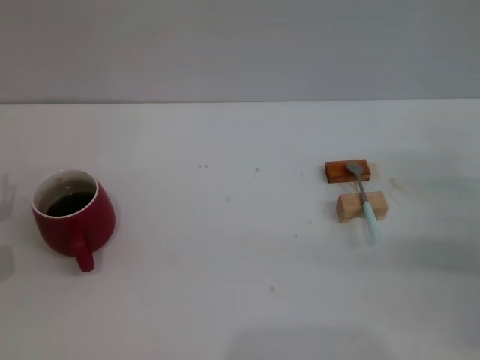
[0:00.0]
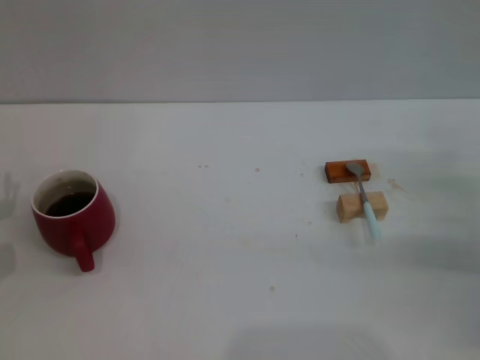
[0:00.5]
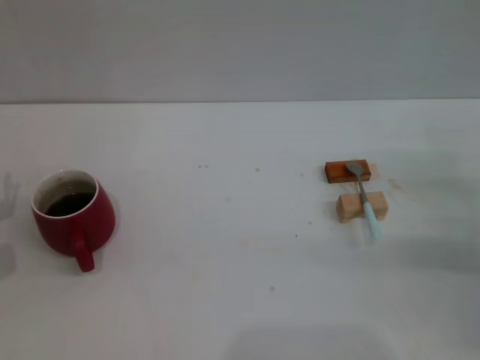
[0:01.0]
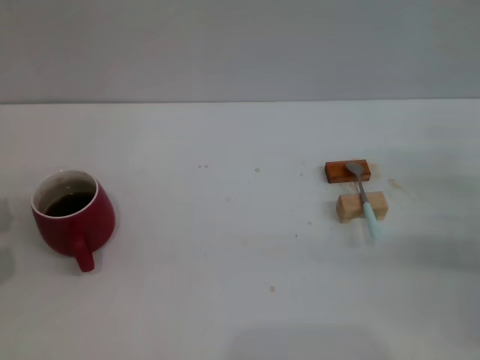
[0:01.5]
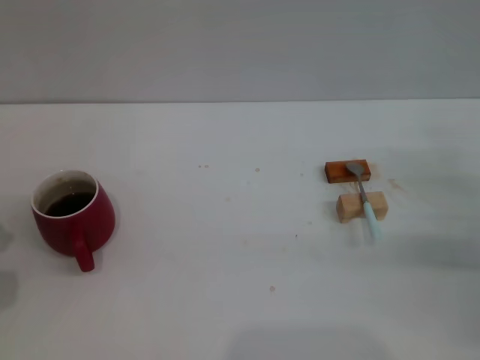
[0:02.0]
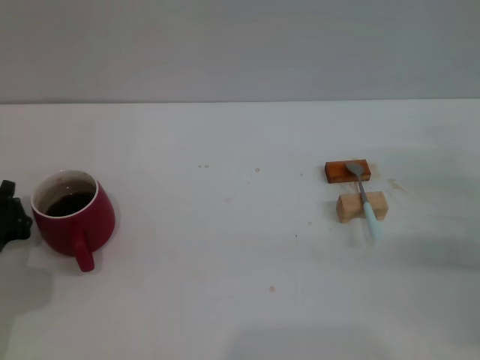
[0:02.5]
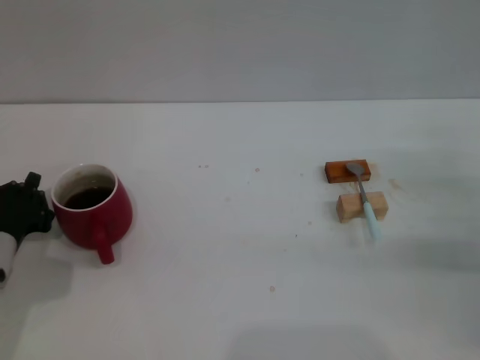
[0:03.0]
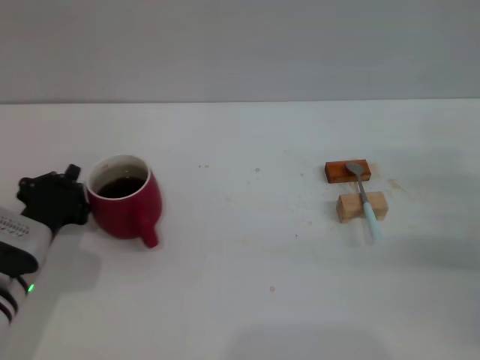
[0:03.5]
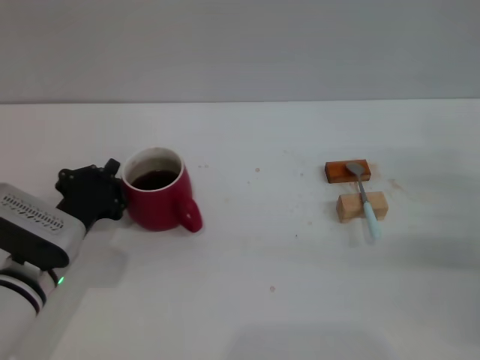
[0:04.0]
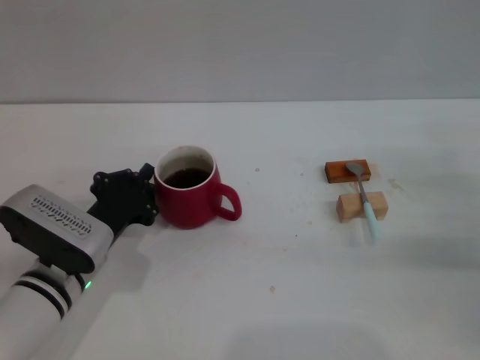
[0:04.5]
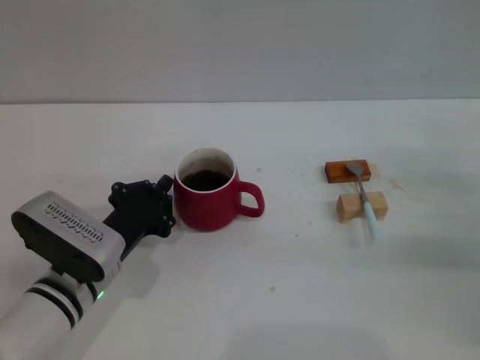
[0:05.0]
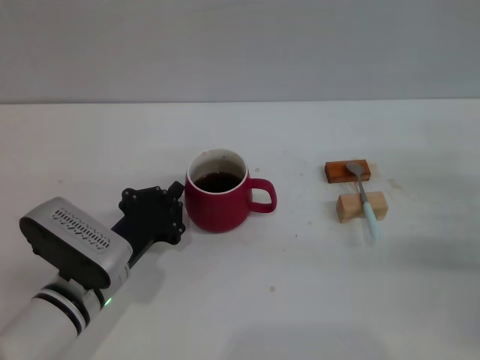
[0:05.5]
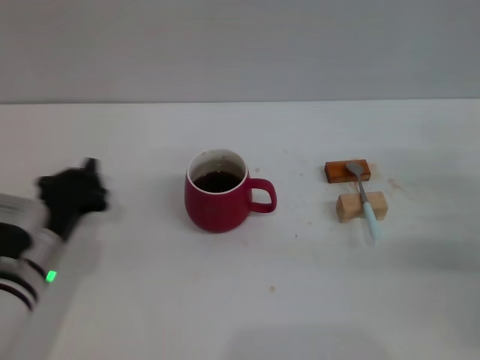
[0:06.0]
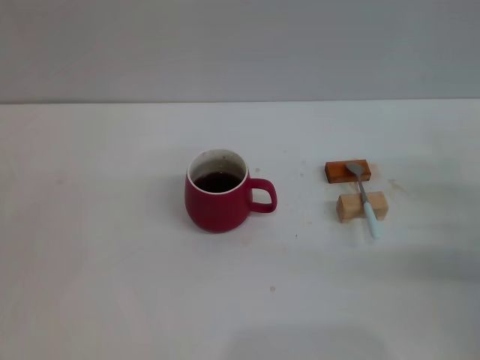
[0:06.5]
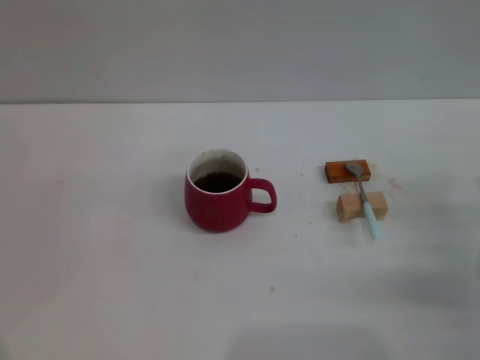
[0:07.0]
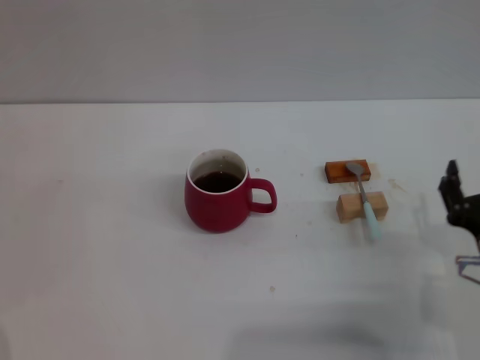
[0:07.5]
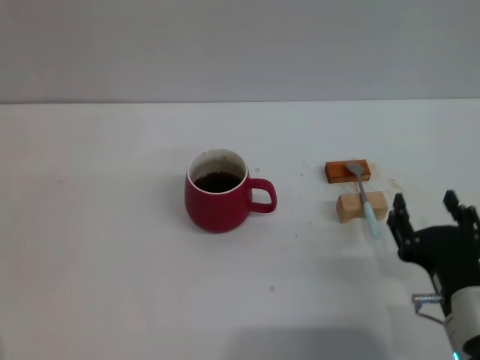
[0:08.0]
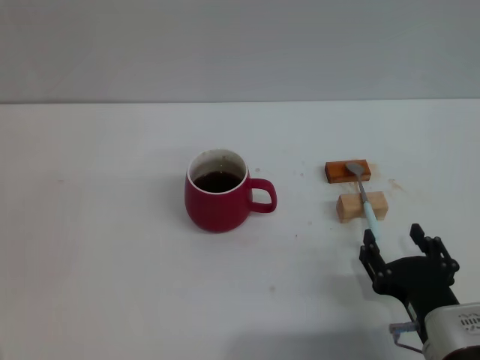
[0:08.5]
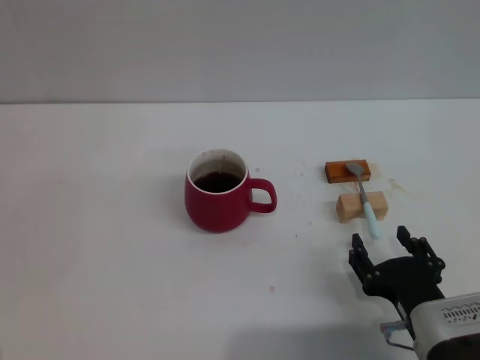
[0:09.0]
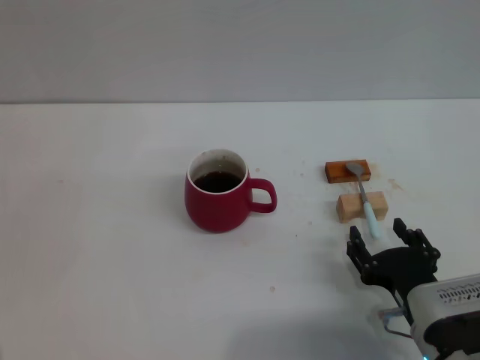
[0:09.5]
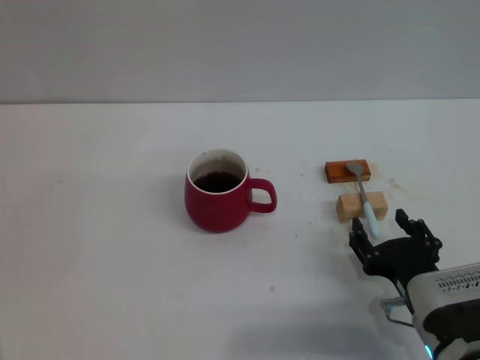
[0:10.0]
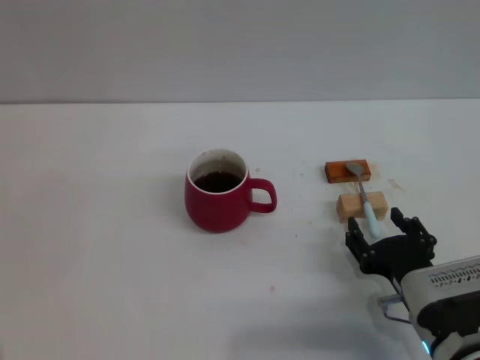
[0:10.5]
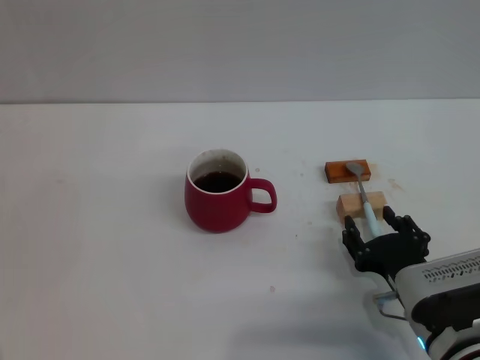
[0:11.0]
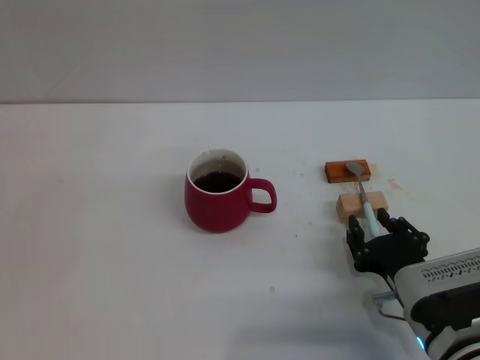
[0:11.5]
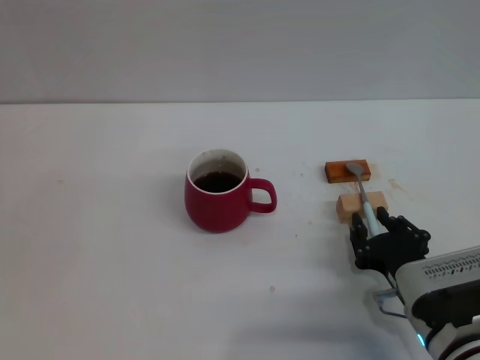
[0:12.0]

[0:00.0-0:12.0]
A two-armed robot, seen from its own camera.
Task of the whole recording: Move the red cup to the center, lift the blue spoon, stir it three times in the cup, and put the spoon into the cup.
Step, 0.0 to 5.5 s: Move the cup in the center of the table with left gripper.
2.0 to 4.0 s: The left gripper goes about 10 cm to the right.
4.0 to 6.0 s: The grippers stay close to where they were, moving slightly.
6.0 to 8.0 s: The right gripper shifts roughly 20 cm to the left and backward. The left gripper travels to the left by some 10 cm, and opens.
8.0 to 10.0 s: The grippers move only a little.
10.0 to 12.0 s: The right gripper closes its fingers.

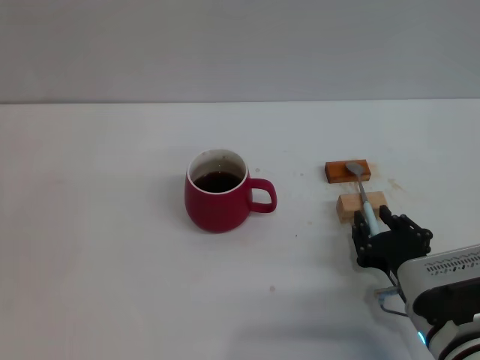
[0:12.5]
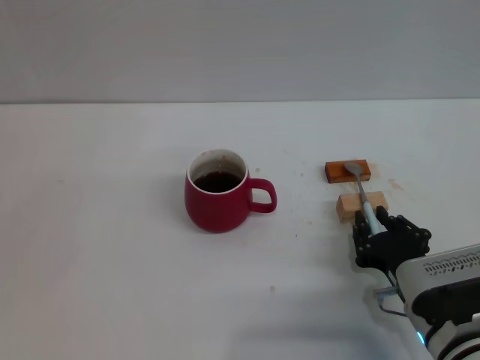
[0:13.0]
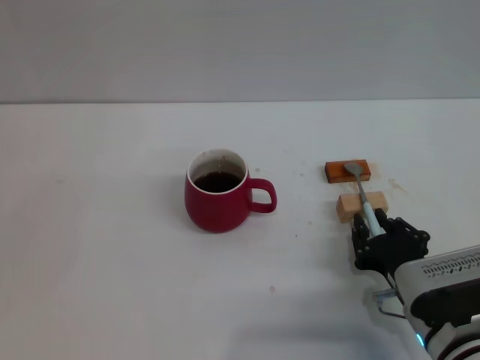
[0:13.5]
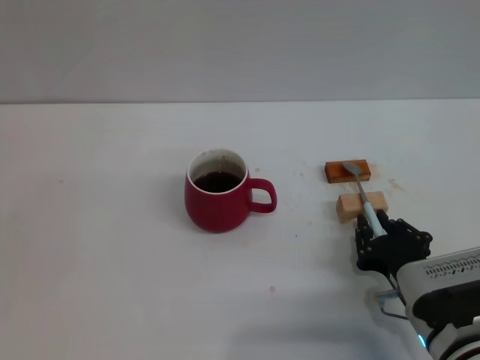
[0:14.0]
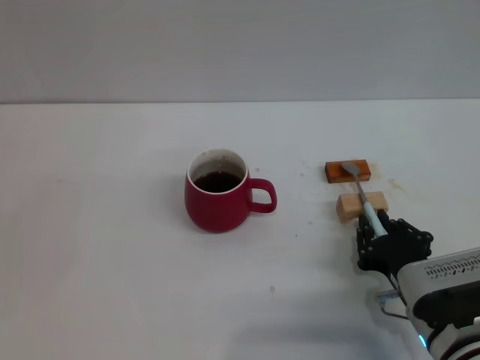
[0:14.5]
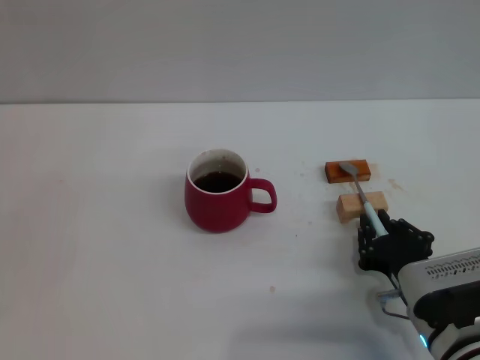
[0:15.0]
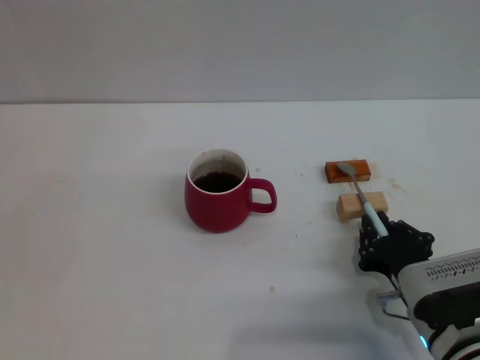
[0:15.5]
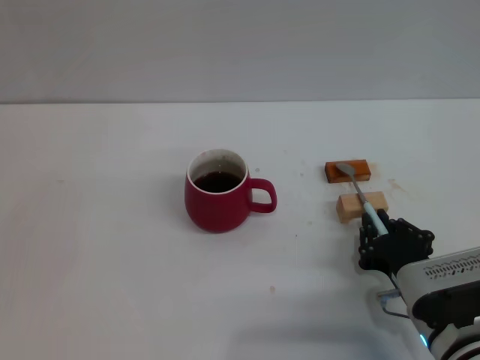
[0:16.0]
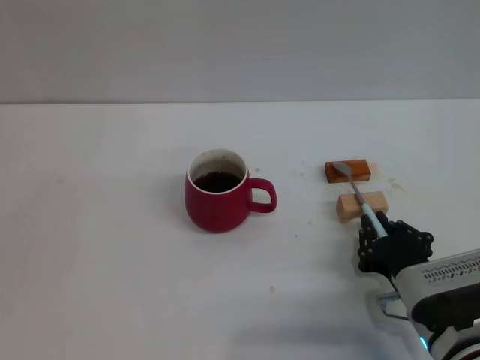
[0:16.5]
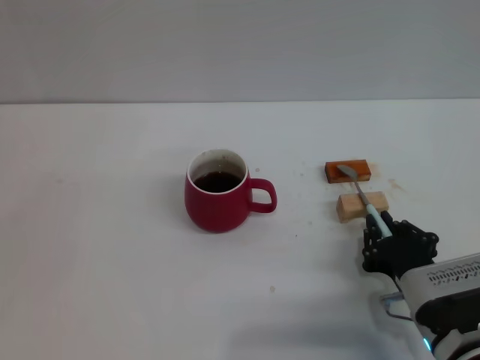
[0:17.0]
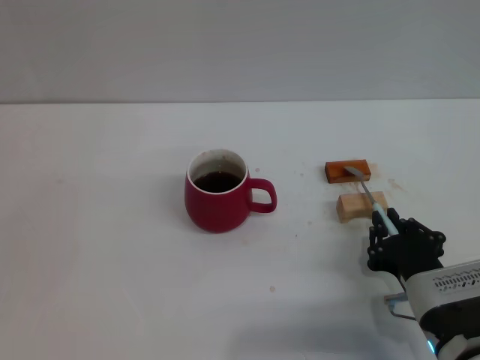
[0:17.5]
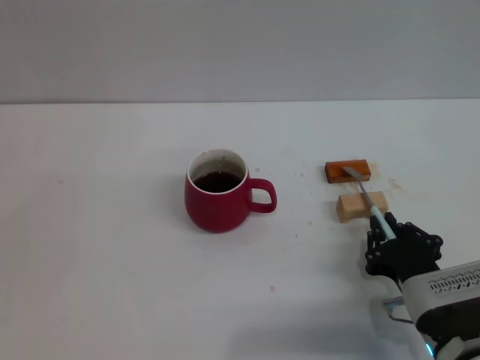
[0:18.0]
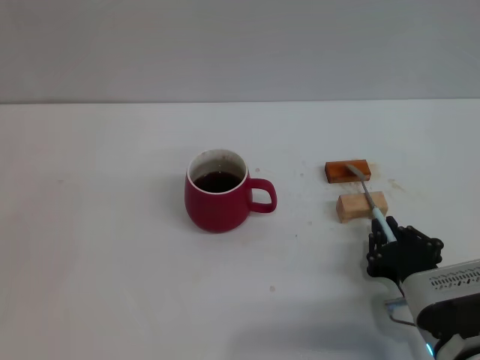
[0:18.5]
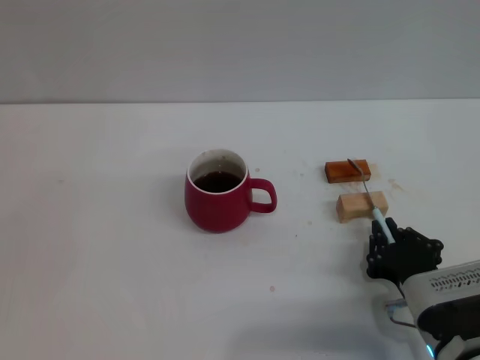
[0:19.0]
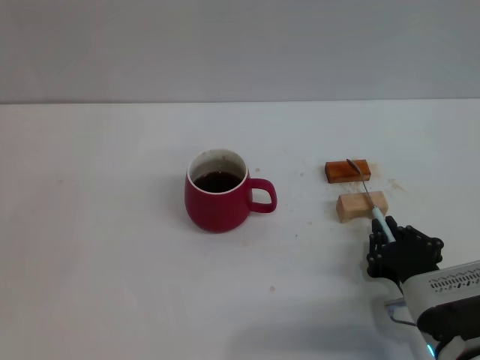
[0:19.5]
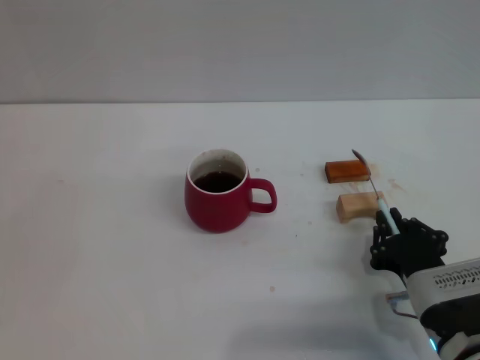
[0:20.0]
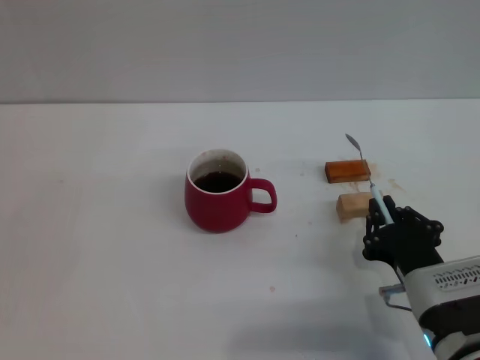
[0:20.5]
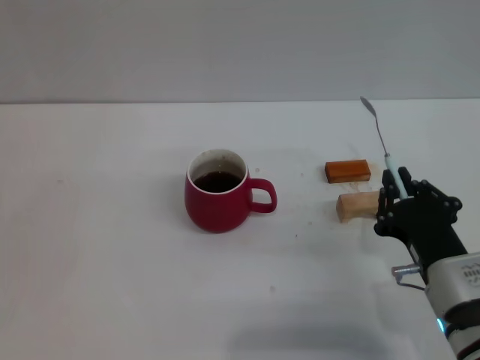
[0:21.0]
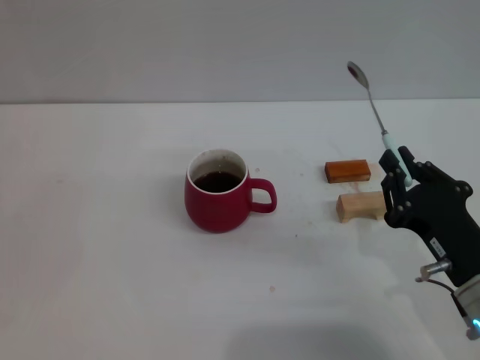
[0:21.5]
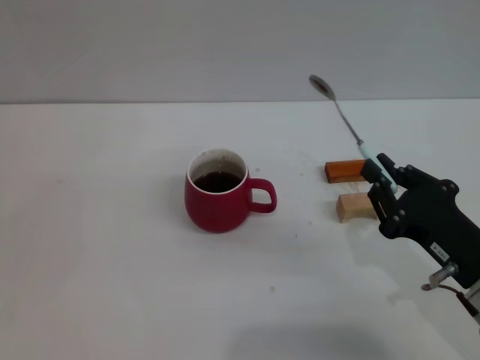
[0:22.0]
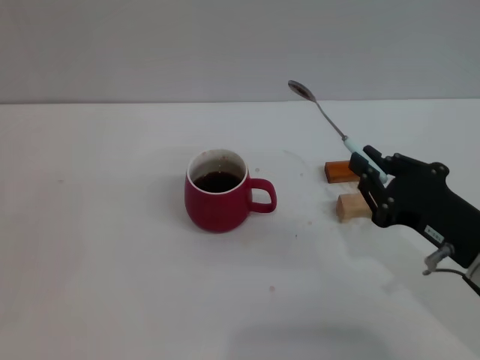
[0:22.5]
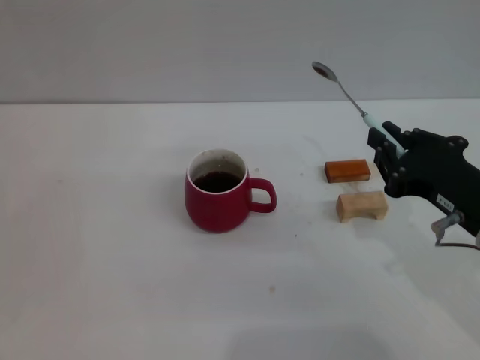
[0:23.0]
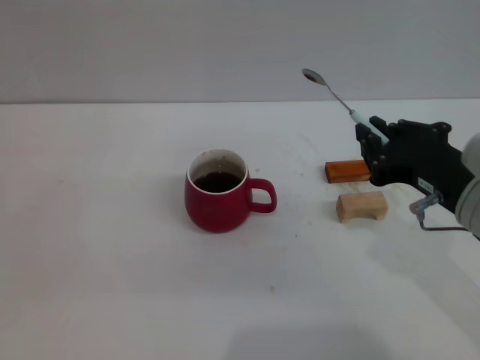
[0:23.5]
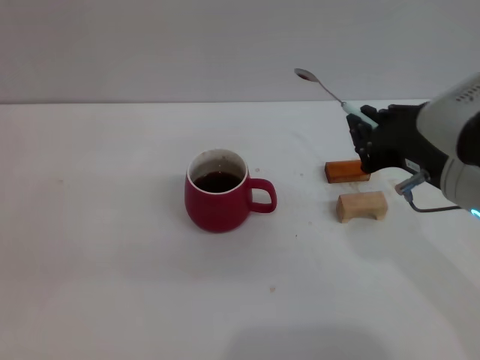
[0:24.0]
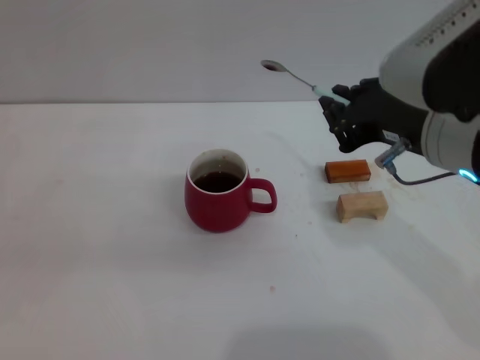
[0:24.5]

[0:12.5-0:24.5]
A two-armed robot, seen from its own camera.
Task of the whole recording: Move the red cup to the center, lift the blue spoon, stir it three times in the cup, and put the spoon into the cup.
Step, 12.5 to 18.5 s: Grasp the spoon with right gripper.
12.5 to 18.5 s: Both grippers stay put.
18.5 to 20.5 s: The grippers move only a little.
20.5 to 22.5 s: The right gripper shifts approximately 10 cm upward.
22.5 to 24.5 s: The right gripper moves upward and to the left, about 15 cm.

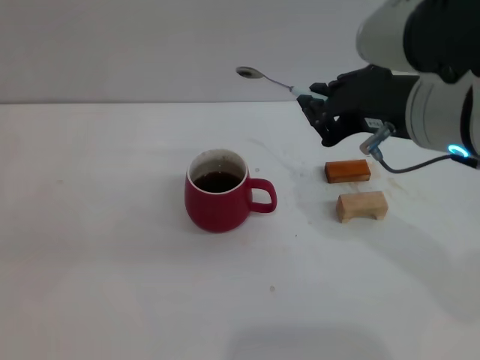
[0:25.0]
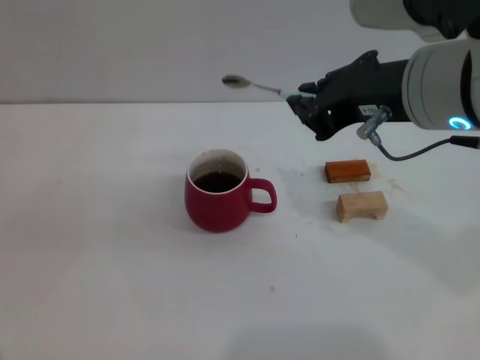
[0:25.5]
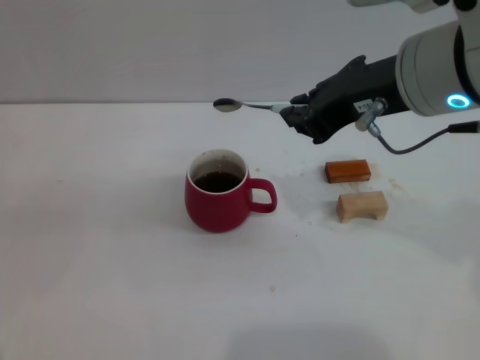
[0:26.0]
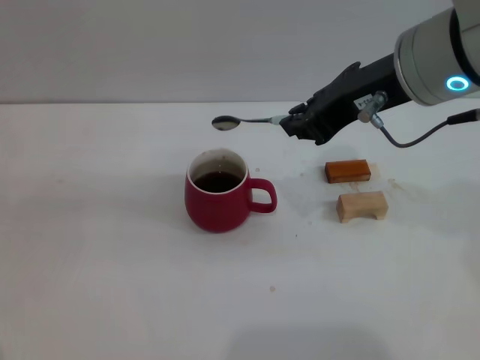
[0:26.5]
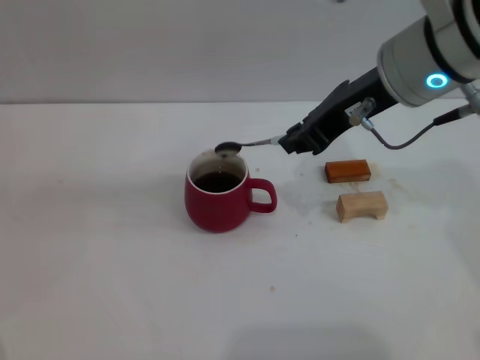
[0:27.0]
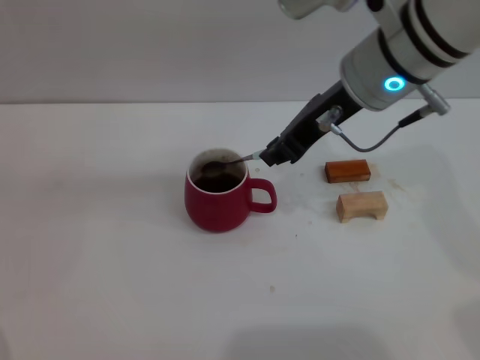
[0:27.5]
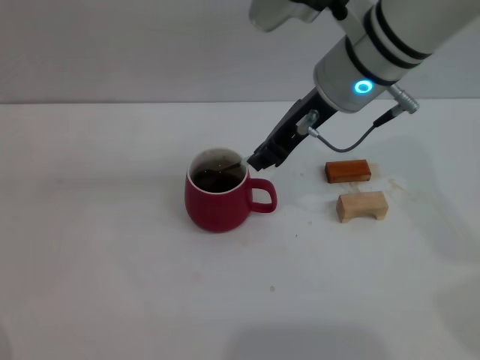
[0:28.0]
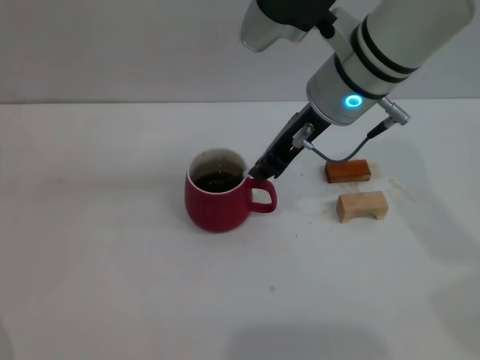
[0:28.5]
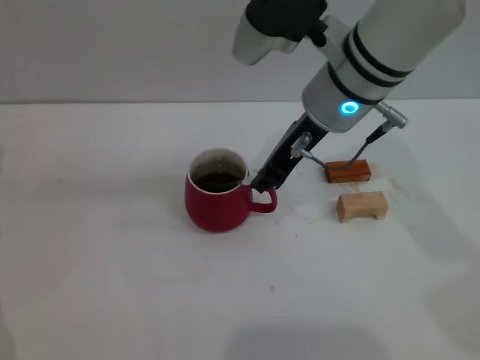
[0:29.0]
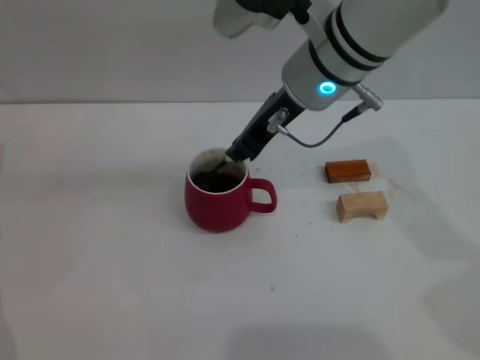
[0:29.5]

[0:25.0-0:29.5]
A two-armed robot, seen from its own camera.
Task of the whole recording: Move the red cup to the center, lift the blue spoon, stir it three times in the cup, and put the spoon into the cup.
25.0 to 27.0 s: The right gripper shifts roughly 10 cm forward.
27.0 to 29.5 s: The right gripper is displaced to the left by some 5 cm.
